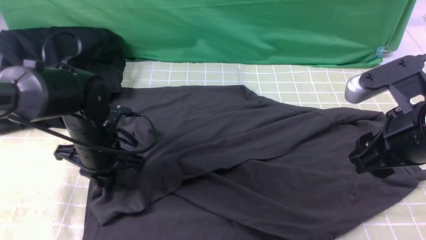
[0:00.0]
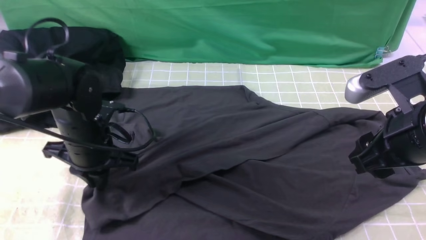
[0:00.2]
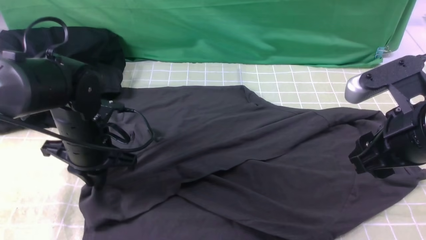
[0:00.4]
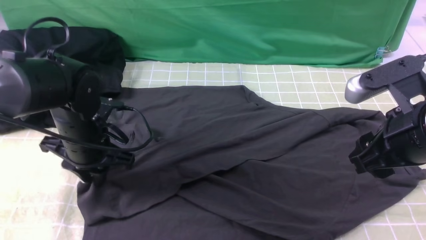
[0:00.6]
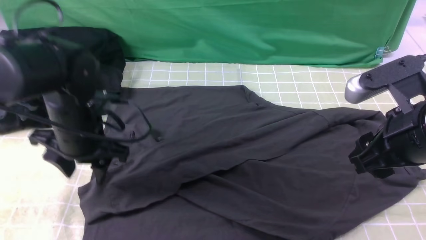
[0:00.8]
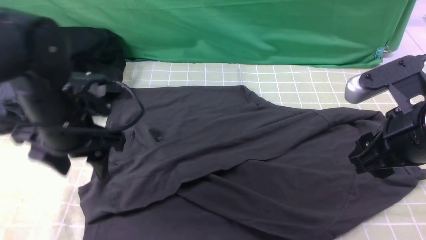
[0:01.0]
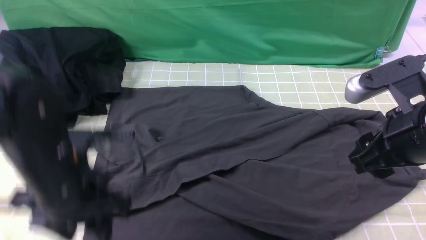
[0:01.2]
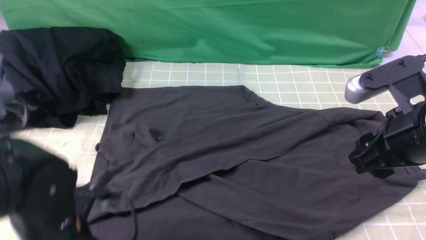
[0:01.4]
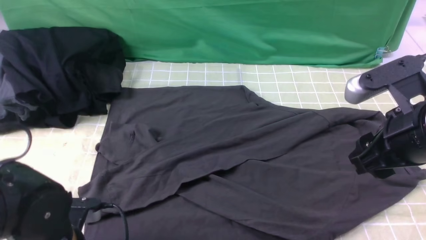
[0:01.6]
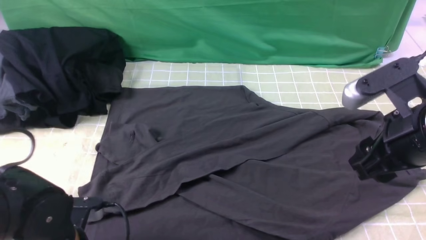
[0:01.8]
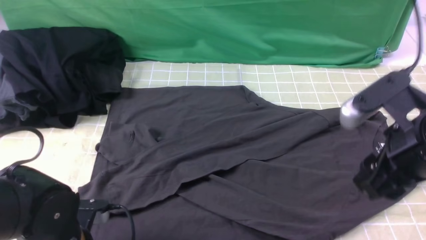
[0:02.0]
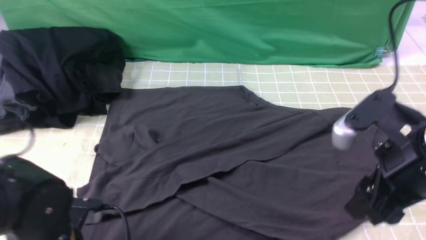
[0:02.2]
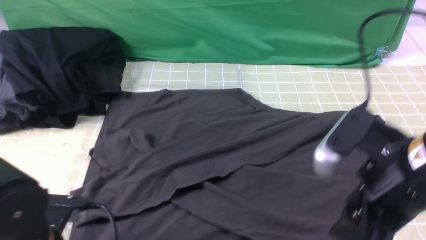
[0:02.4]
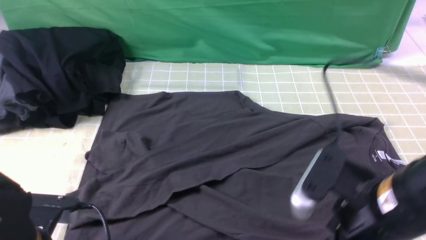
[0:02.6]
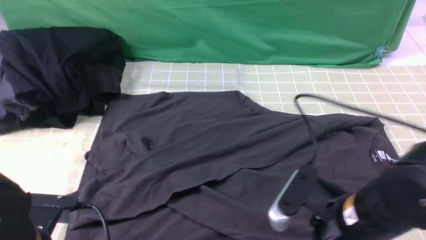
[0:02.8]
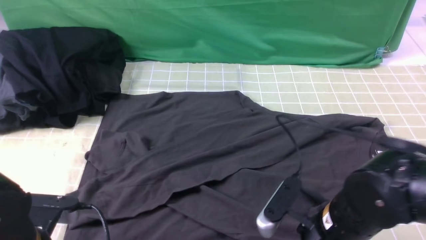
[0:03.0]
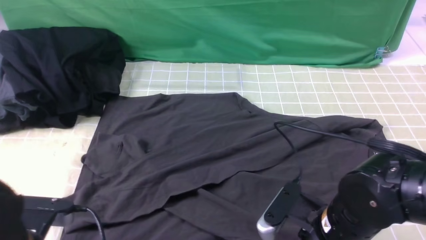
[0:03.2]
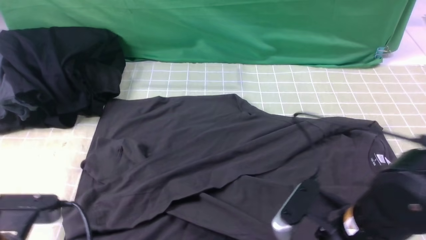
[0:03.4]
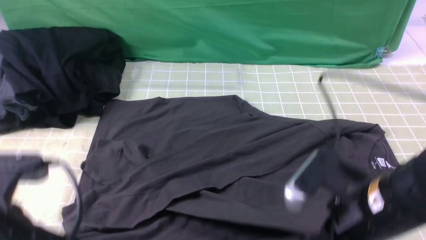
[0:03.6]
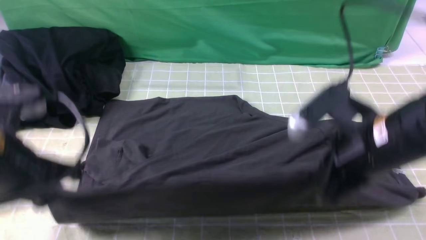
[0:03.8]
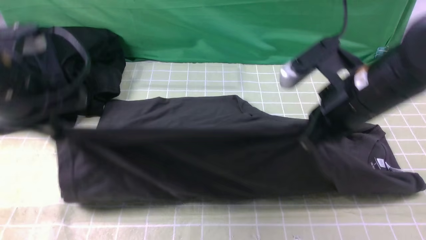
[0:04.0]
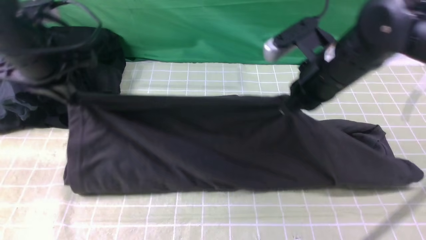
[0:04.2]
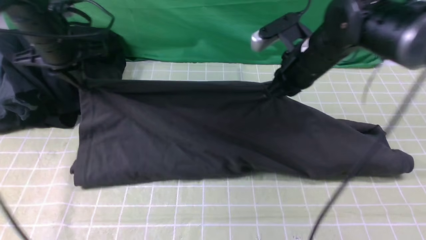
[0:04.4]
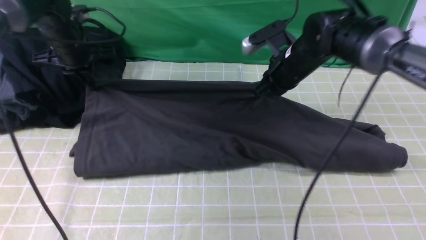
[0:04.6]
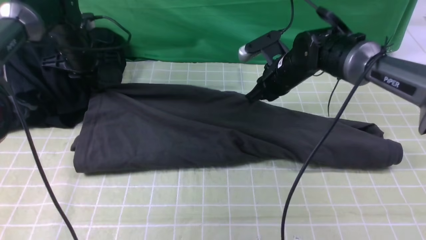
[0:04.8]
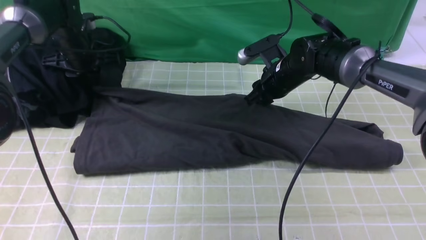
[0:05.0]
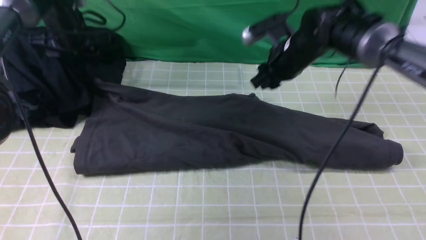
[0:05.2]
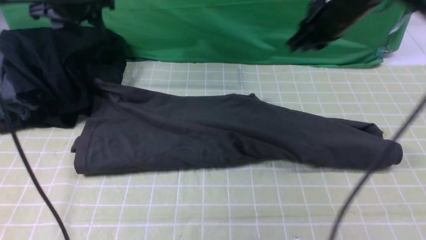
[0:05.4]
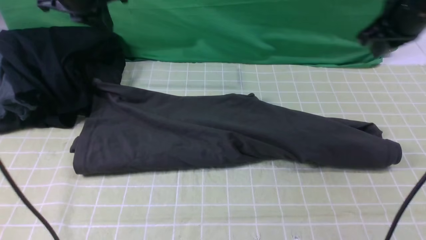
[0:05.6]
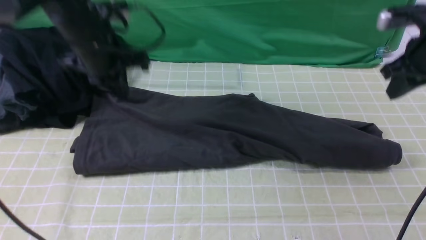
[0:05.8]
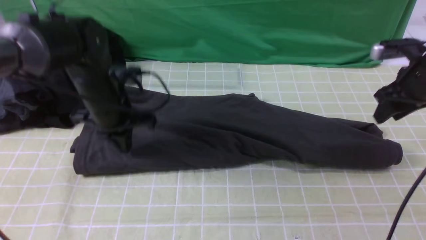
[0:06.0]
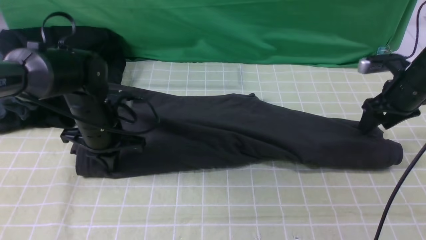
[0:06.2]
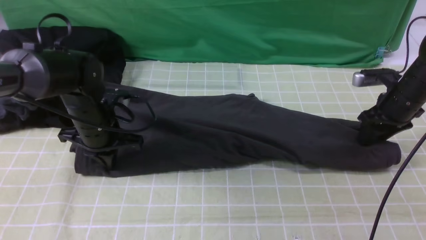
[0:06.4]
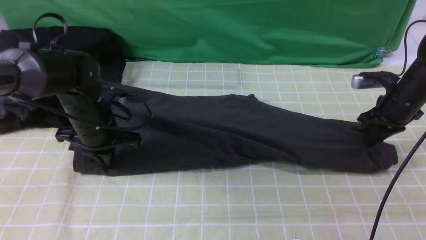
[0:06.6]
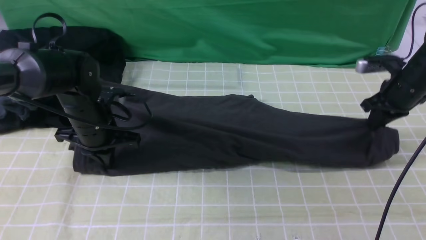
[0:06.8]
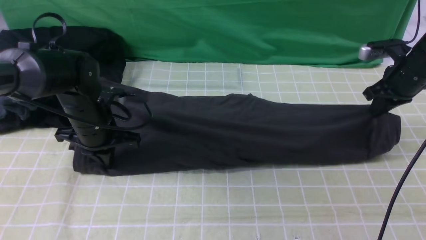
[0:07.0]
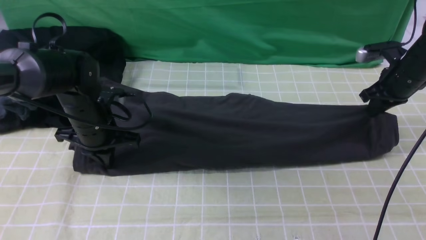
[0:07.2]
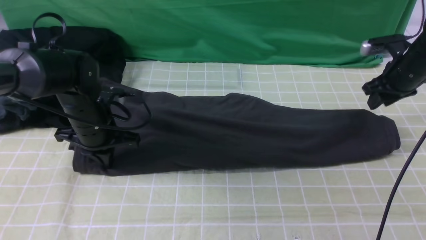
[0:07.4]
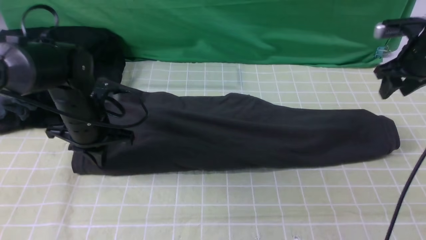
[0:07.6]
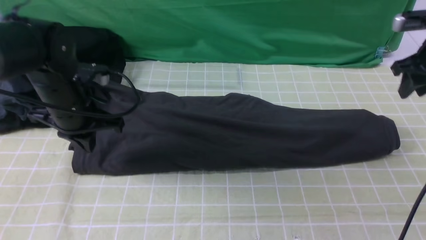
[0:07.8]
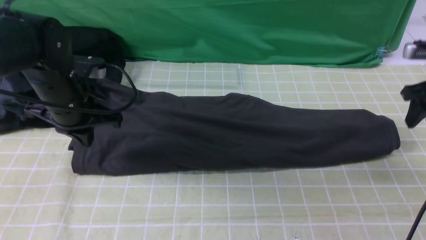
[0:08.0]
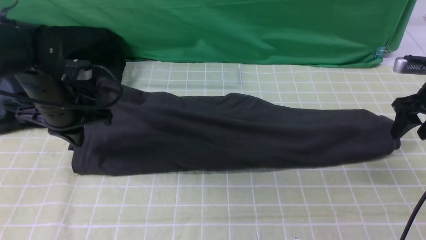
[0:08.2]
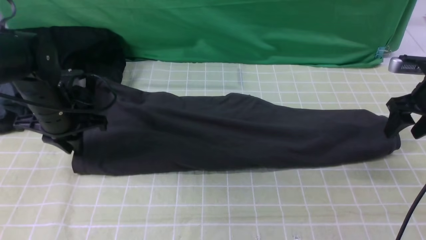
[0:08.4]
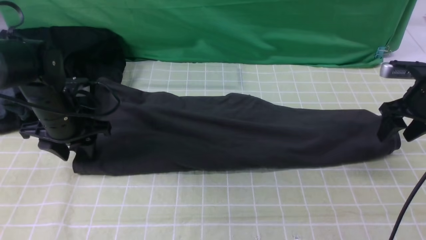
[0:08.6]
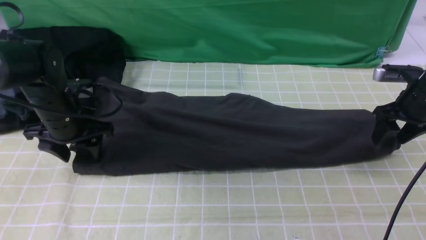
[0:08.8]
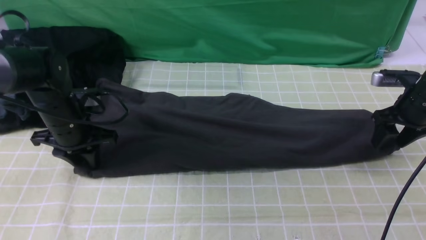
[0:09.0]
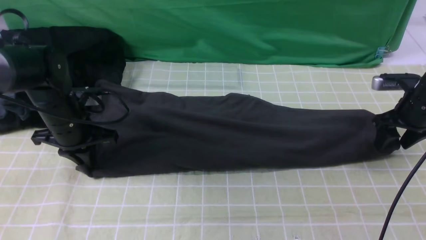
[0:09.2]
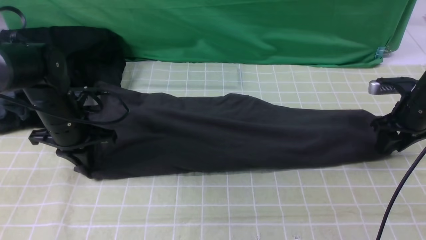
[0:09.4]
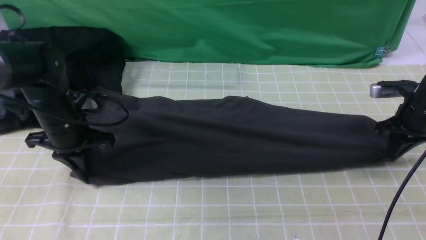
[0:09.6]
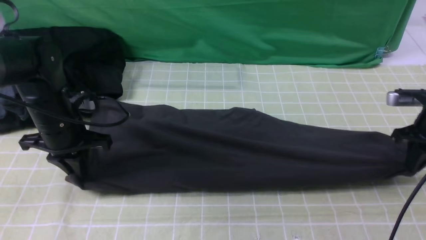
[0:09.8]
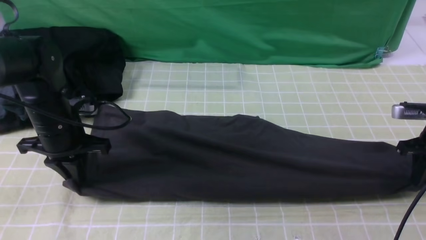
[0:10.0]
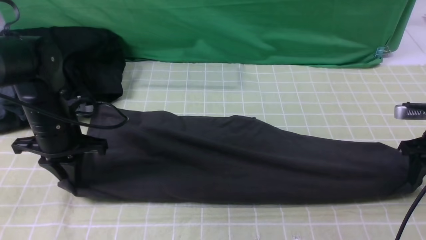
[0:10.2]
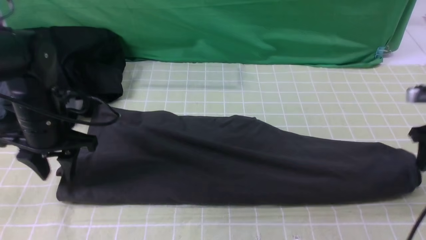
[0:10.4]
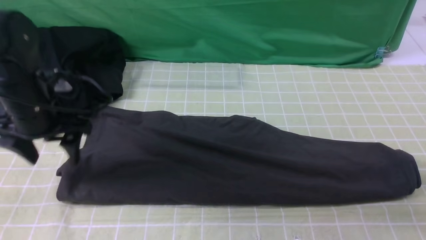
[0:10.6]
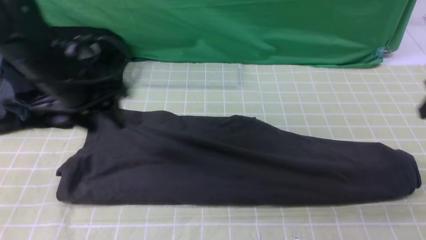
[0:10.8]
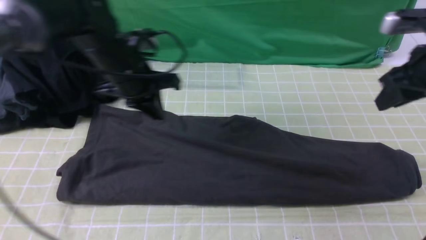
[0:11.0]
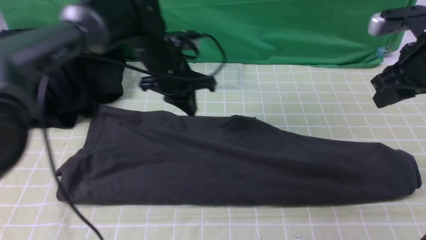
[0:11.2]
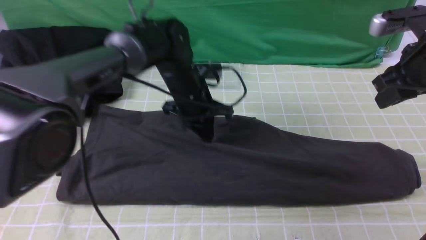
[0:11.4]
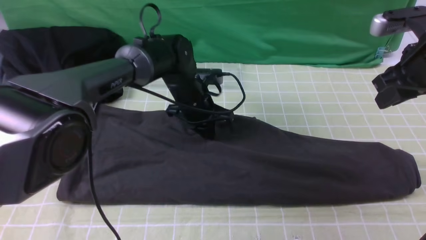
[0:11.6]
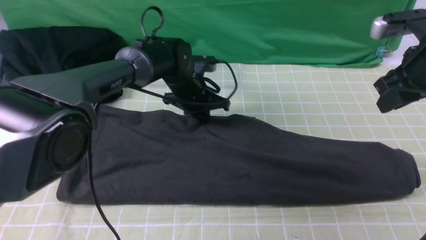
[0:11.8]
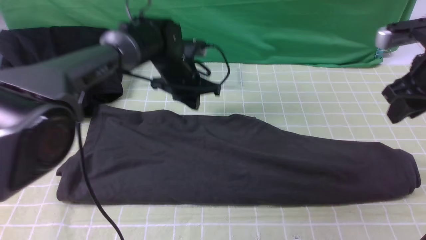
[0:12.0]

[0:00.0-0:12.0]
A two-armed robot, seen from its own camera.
Step, 1.0 to 3.0 s: use both arms simultaneously to clamp the lower edge of the clothing fabric.
Step, 3.4 to 5.0 s: use both arms to drag the lower edge of the fabric forward and fold it over the upper edge.
0.0 to 1.6 s: The left gripper moves backward, about 15 cm, and opens up.
1.6 to 3.0 s: The right gripper travels downward and to the left by about 15 cm, while the left gripper moves some 5 cm, and closes its fingers.
3.0 to 4.4 s: The two grippers go approximately 25 cm forward. The right gripper closes its fingers.
4.4 to 6.0 s: The right gripper goes roughly 20 cm to the right, and opens its fingers; the left gripper heads to the right, downward and backward, covering roughly 10 cm, and opens, then closes once more.
6.0 to 7.6 s: The right gripper moves roughly 5 cm downward and comes back, and closes, then reopens.
7.6 to 9.0 s: The left gripper opens up. Meanwhile the right gripper heads downward, covering roughly 5 cm.
9.0 to 10.4 s: The right gripper heads backward and upward, covering some 10 cm, and closes, then reopens. Meanwhile the left gripper changes place by some 5 cm, and closes, then reopens.
10.4 to 12.0 s: The right gripper moves to the left and upward, some 10 cm, while the left gripper moves to the right and forward, about 20 cm, and closes.

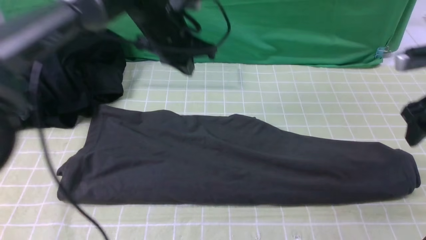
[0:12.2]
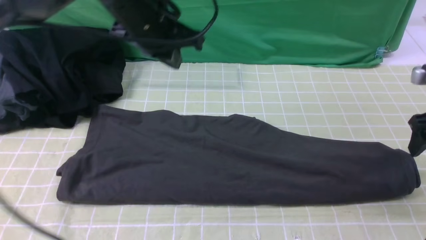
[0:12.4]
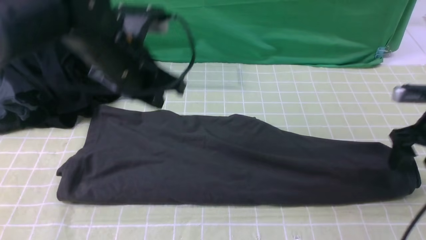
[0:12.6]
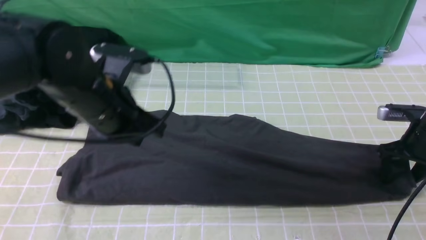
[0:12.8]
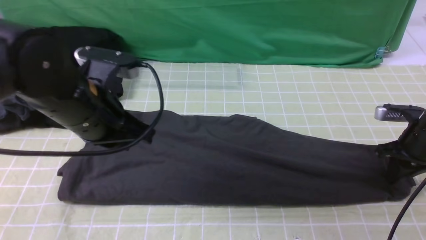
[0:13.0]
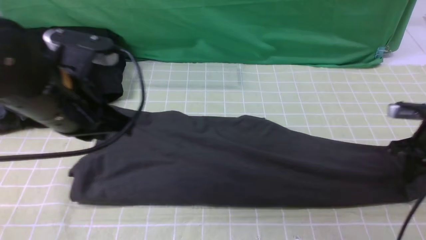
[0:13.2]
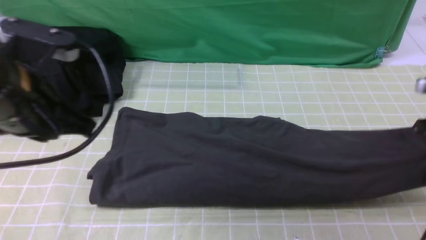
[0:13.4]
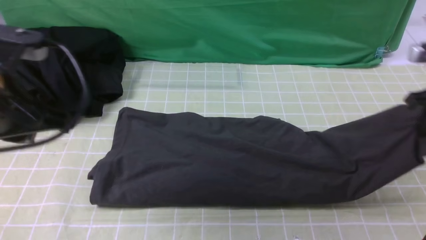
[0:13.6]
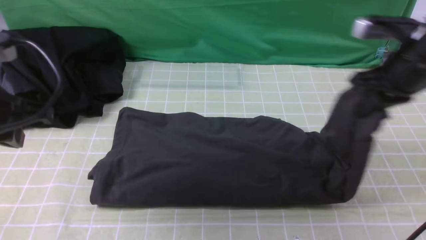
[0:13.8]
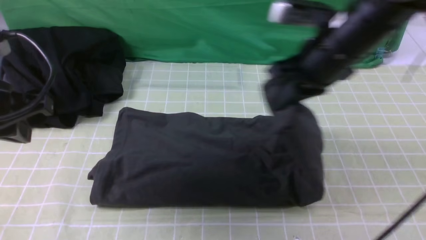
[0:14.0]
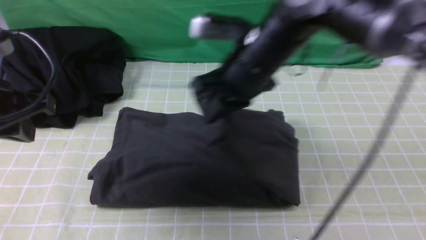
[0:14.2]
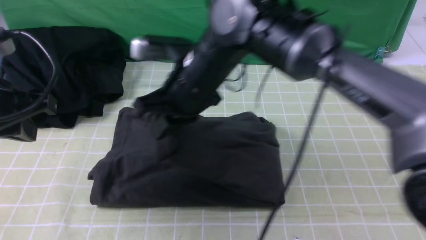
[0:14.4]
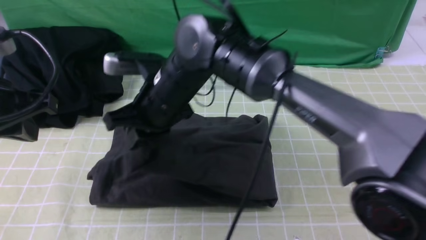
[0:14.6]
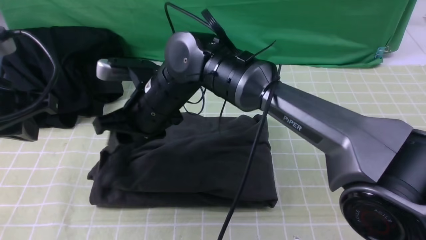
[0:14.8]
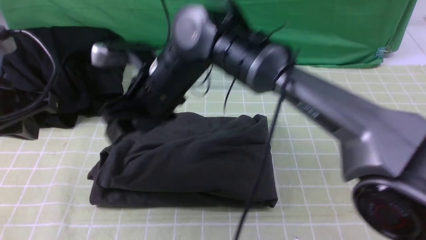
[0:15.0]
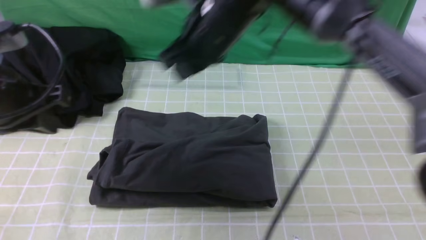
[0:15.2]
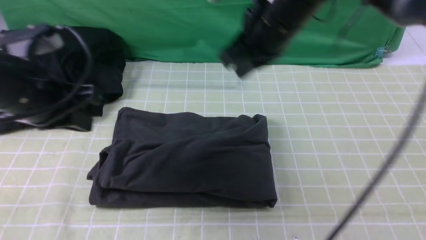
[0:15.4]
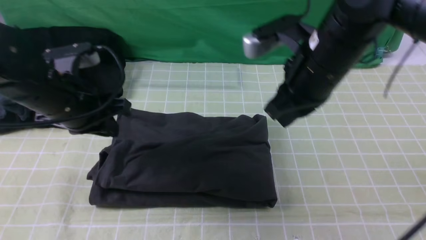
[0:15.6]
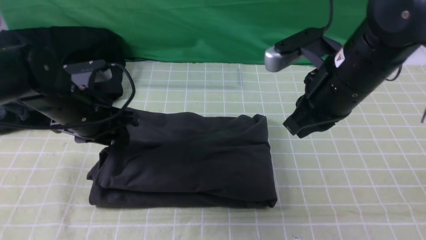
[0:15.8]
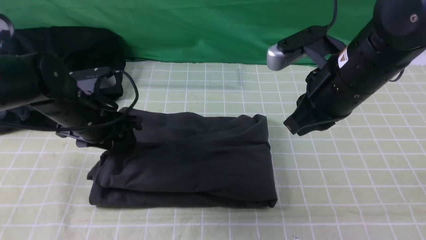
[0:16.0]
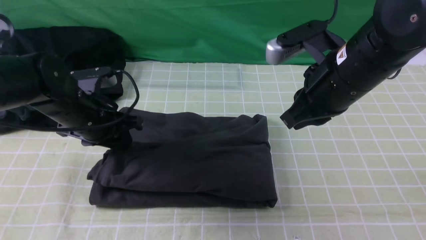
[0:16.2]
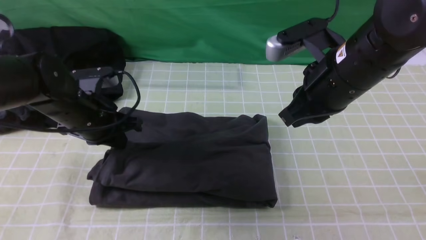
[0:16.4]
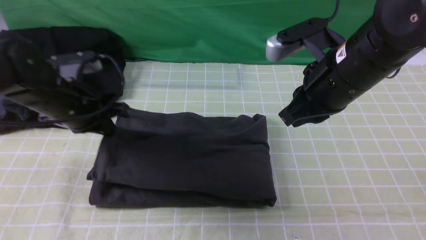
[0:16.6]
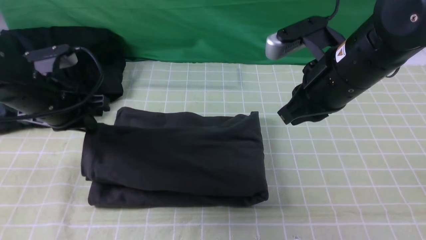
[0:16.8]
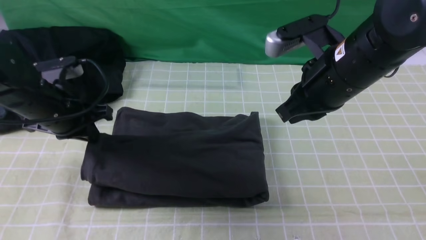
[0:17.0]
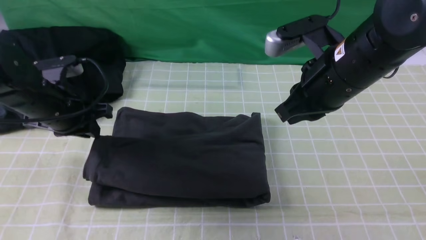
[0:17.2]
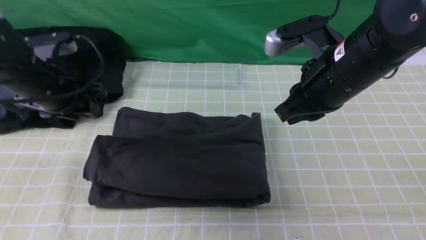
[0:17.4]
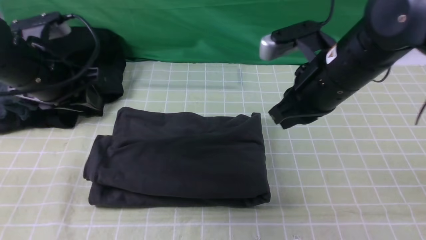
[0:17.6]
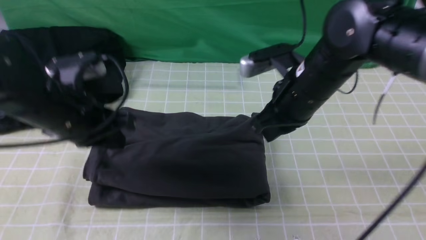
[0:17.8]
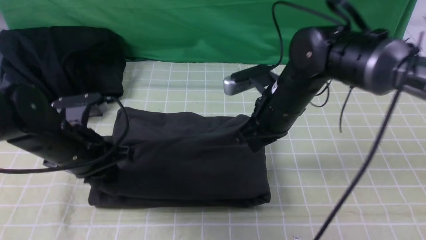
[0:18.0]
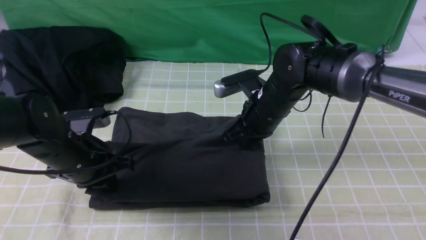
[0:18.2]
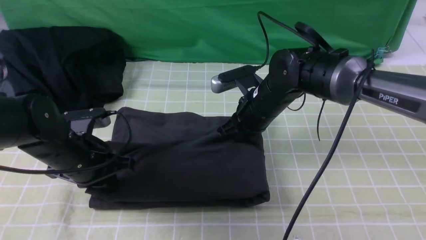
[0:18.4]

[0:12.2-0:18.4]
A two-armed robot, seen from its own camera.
Step, 13.2 to 15.0 s: use the right arm to drag the right edge of the fabric to the left and folds it over the left edge.
12.2 to 13.8 s: The right gripper goes some 10 cm to the left, travels downward and back again, roughly 10 cm each way, and closes up, while the left gripper is displaced backward and to the left by approximately 25 cm.
13.8 to 15.4 s: The right gripper goes approximately 15 cm to the left, and opens, then closes again; the left gripper ends up some 5 cm from where it was.
15.4 to 16.8 s: The right gripper is displaced to the right by roughly 5 cm; the left gripper heads downward, covering approximately 5 cm, and opens, then closes once more.
16.8 to 18.4 s: The right gripper shifts roughly 20 cm downward, forward and to the left. Meanwhile the left gripper shifts approximately 5 cm downward, and opens, then closes once more.
